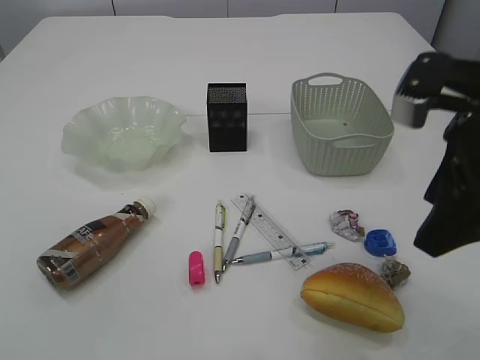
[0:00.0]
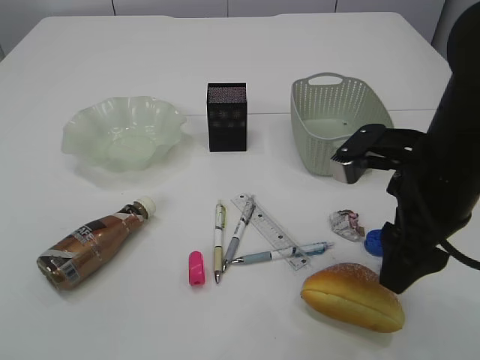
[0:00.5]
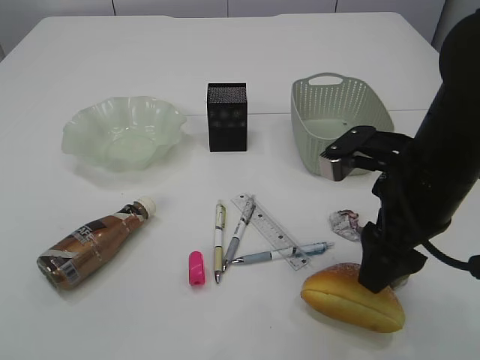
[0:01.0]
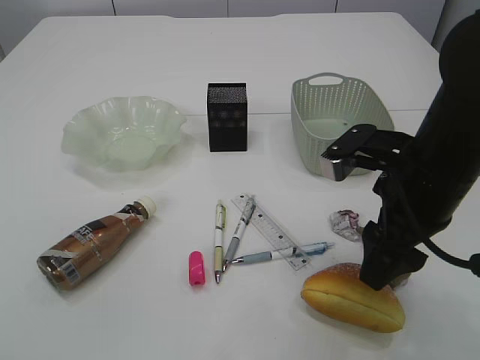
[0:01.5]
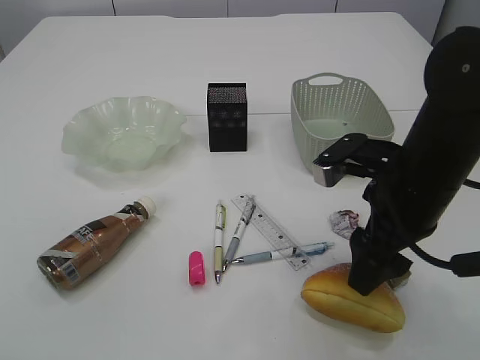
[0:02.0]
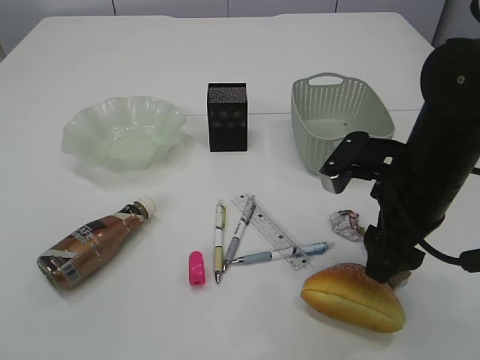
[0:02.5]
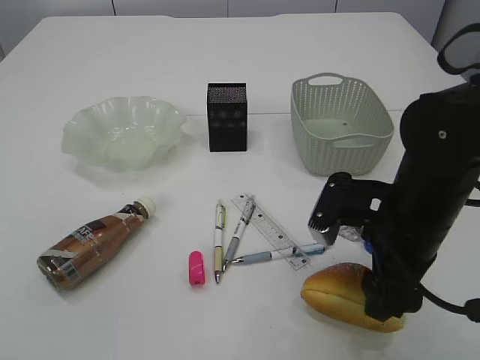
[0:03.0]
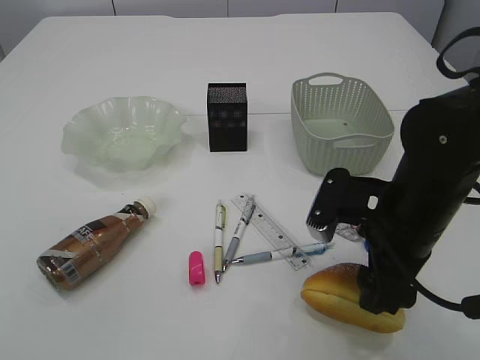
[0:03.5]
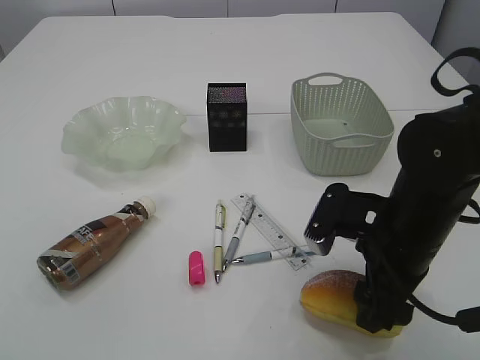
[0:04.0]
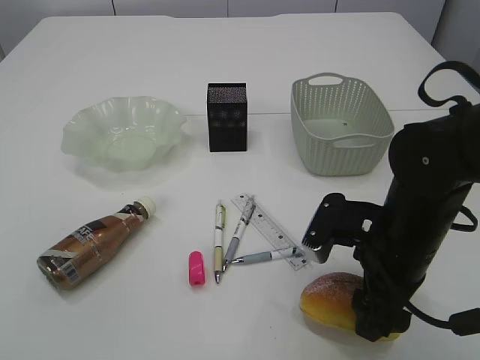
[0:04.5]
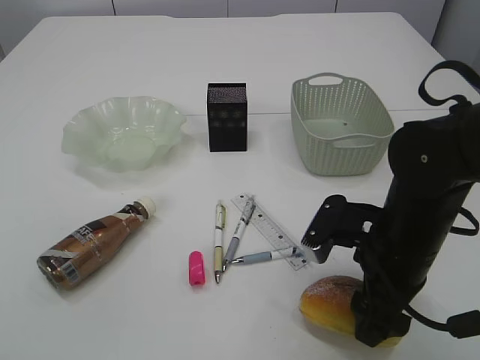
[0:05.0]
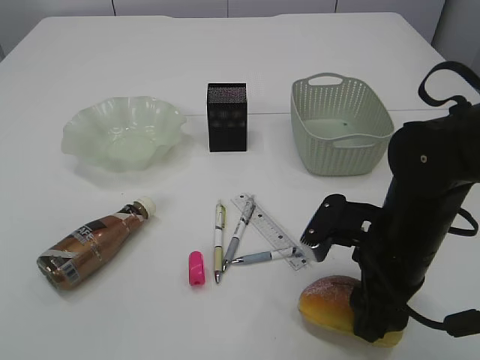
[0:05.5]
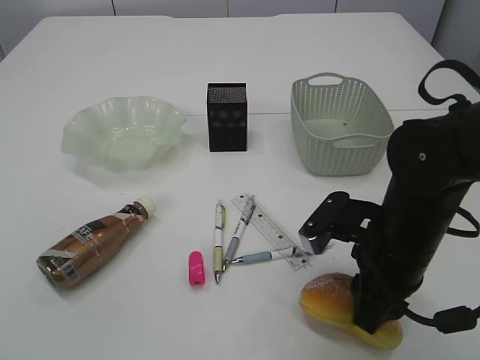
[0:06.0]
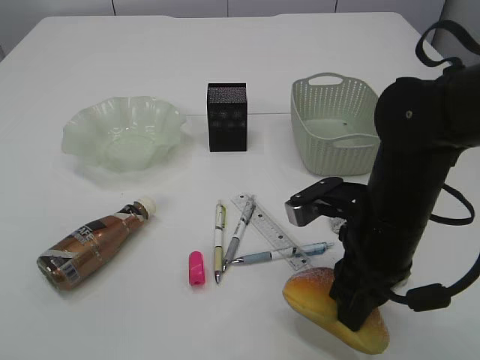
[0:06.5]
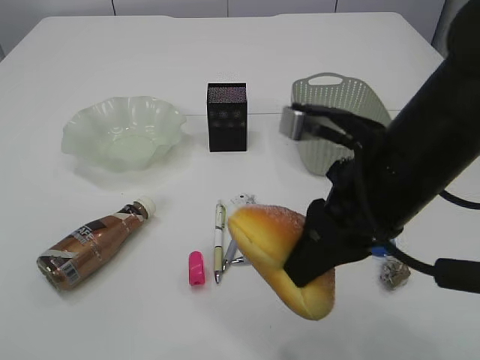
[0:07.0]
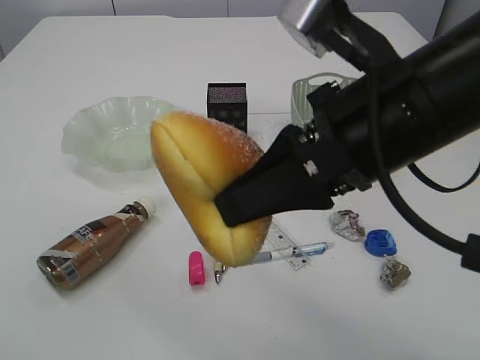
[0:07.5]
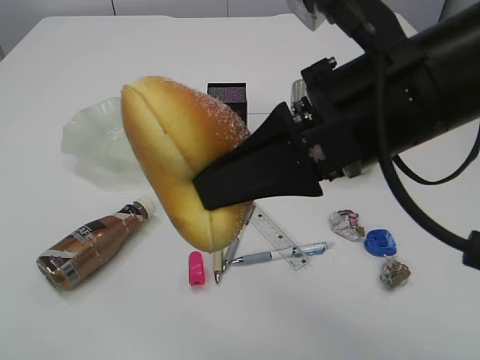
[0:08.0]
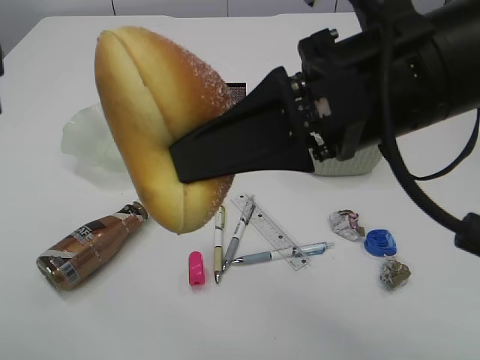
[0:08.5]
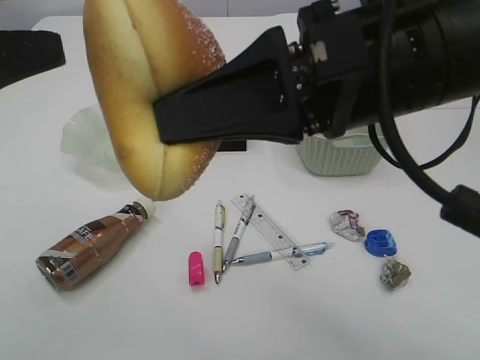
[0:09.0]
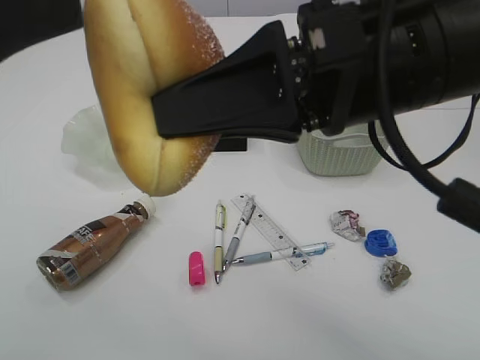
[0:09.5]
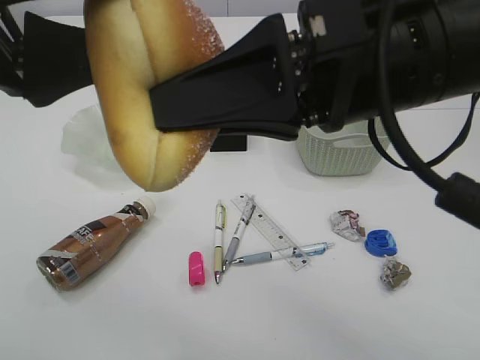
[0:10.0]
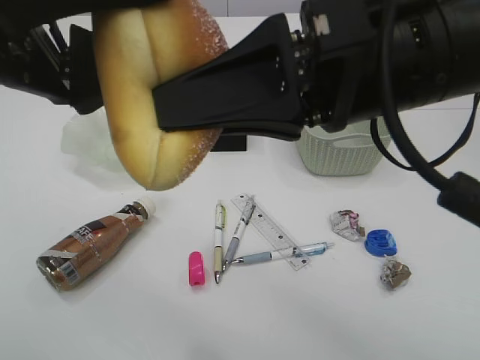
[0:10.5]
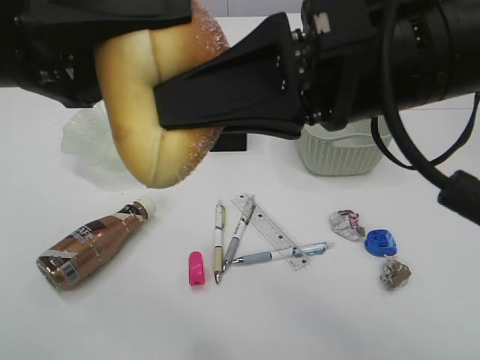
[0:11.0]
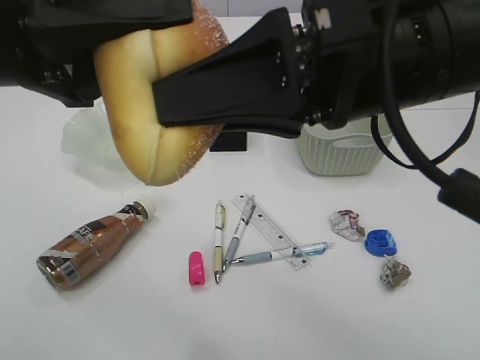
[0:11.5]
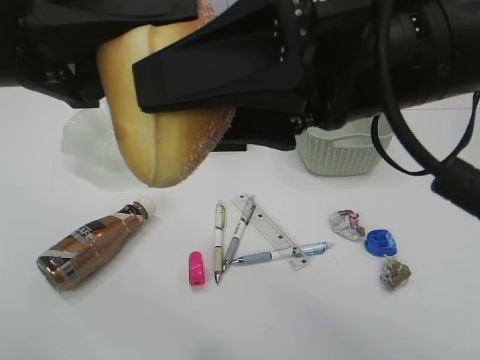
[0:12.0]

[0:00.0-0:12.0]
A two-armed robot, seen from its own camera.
0.0 to 2.0 s: The right gripper heads downward, covering some 10 cm.
2.0 to 4.0 s: The right gripper changes place by approximately 5 cm.
4.0 to 6.0 s: The right gripper closes up.
6.0 to 8.0 s: The right gripper shifts roughly 20 cm upward, while the left gripper goes about 10 cm upward and forward.
8.0 to 10.0 s: The left gripper moves forward and to the right, about 20 cm, and opens.
10.0 to 12.0 s: The left gripper closes. The right gripper opens its fingers.

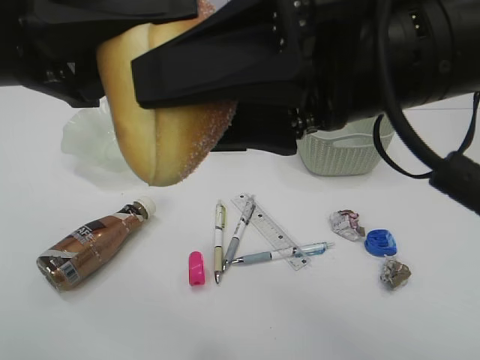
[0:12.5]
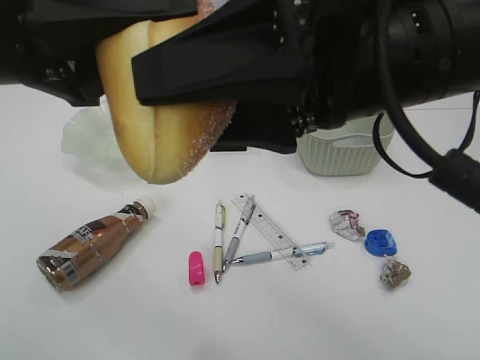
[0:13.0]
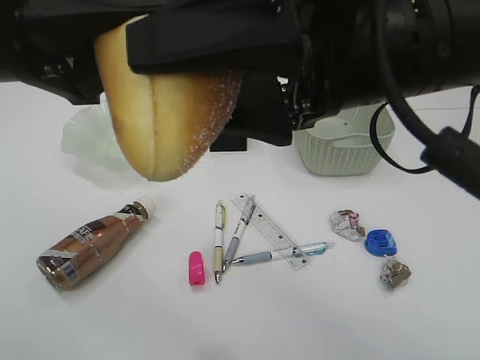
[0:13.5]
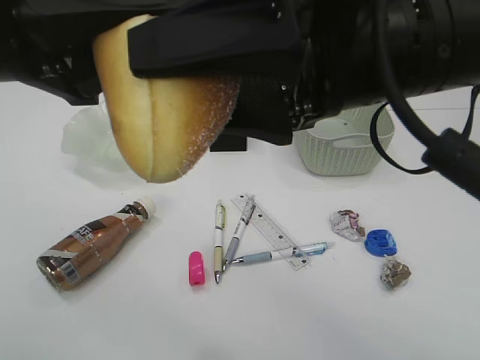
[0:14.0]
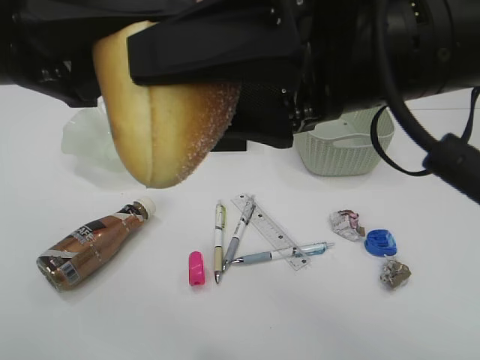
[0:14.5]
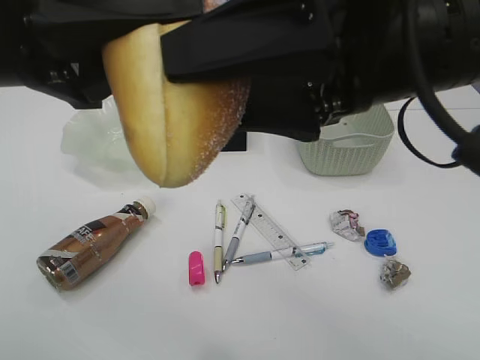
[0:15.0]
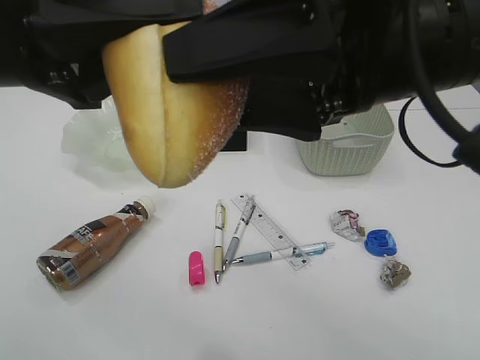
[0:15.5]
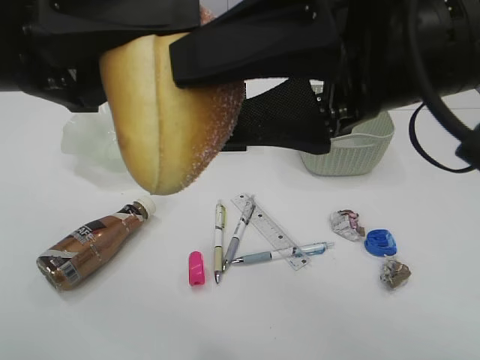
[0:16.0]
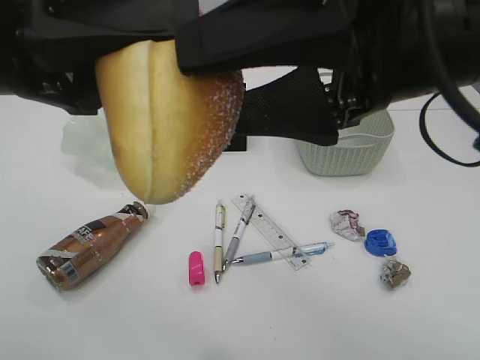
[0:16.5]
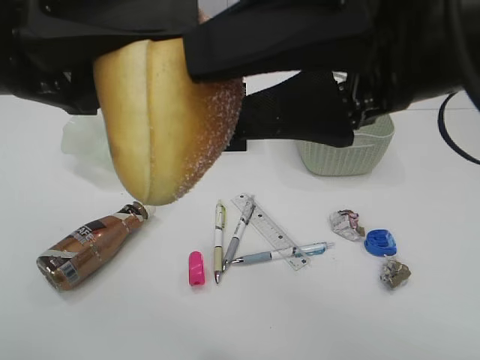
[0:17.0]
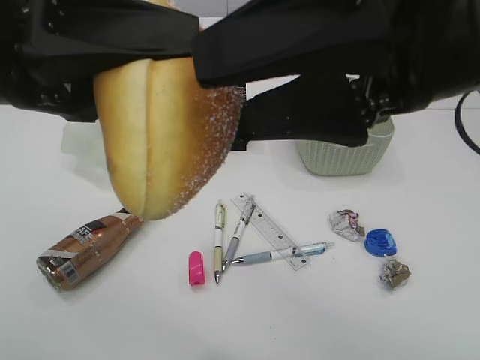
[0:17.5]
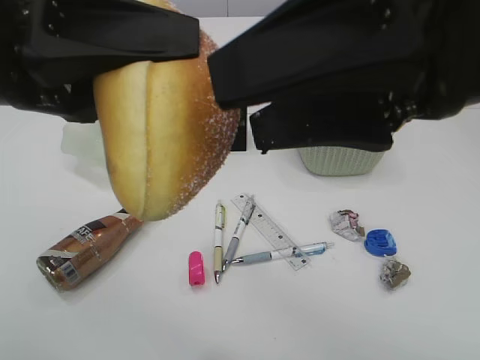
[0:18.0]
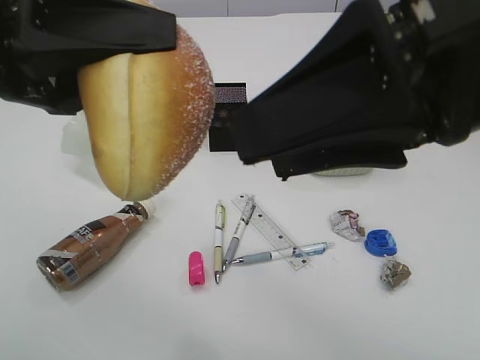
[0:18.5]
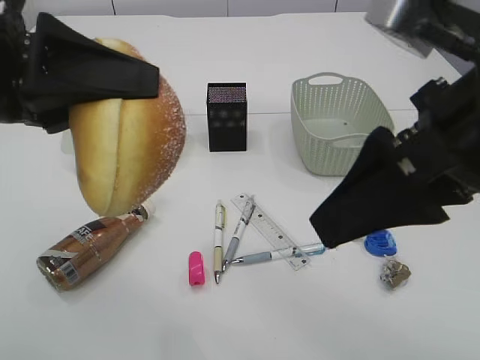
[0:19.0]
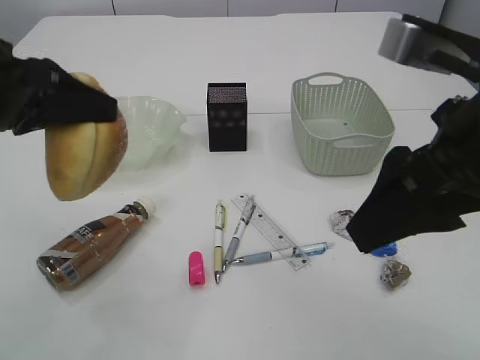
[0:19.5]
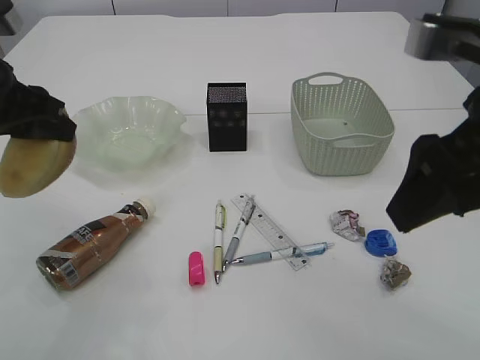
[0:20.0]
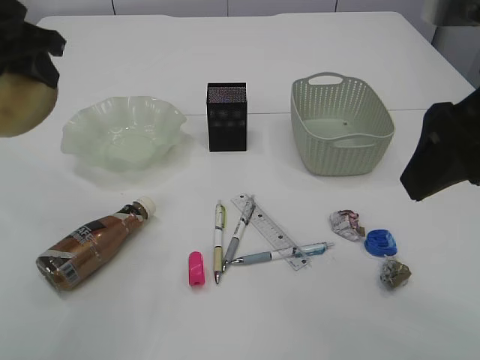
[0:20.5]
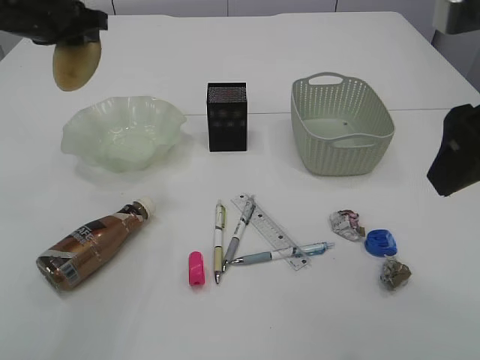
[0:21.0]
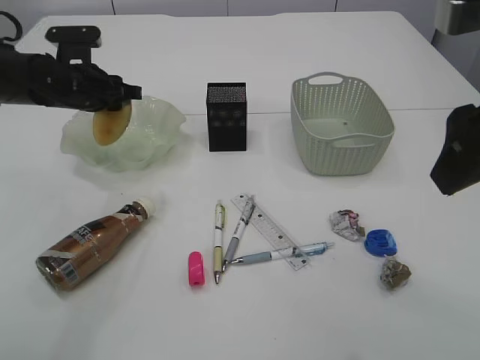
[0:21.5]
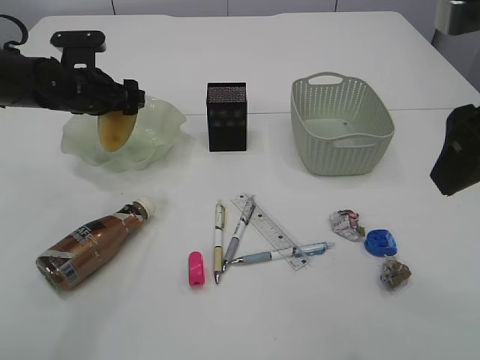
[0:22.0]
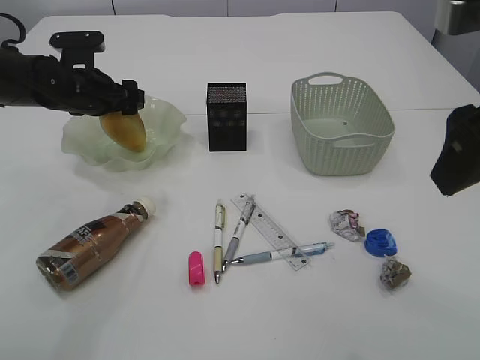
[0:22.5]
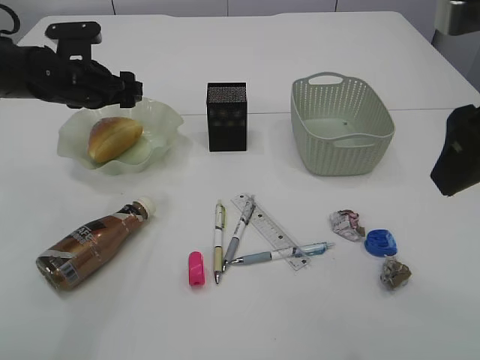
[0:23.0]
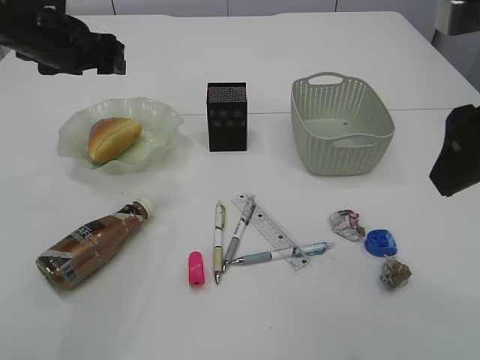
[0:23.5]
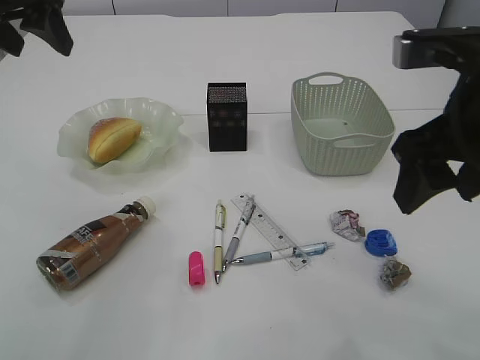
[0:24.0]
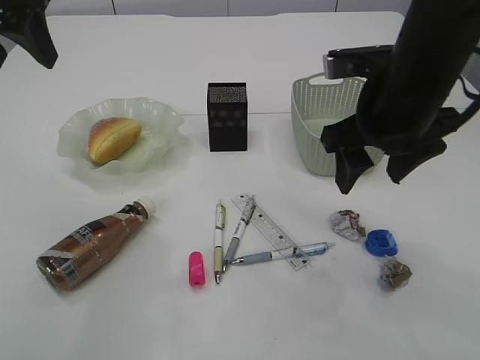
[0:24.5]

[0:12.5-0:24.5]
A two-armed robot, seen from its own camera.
Step, 12.5 to 18.5 s: Hand over the bread.
Step, 19.0 to 23.0 s: place the bread in the plate.
12.5 to 14.5 s: The two grippers keep their place.
14.5 to 16.5 s: The grippers move only a little.
18.5 to 20.5 s: The left gripper travels forward and to the left by some 15 cm. Meanwhile the right gripper goes approximately 5 cm to the right.
20.5 to 22.5 s: The left gripper is displaced downward and forward by some 20 cm, and opens its fingers.
22.5 to 24.5 s: The left gripper travels upward and backward by approximately 25 cm. Meanwhile the right gripper is displaced forward and downward by about 15 cm.

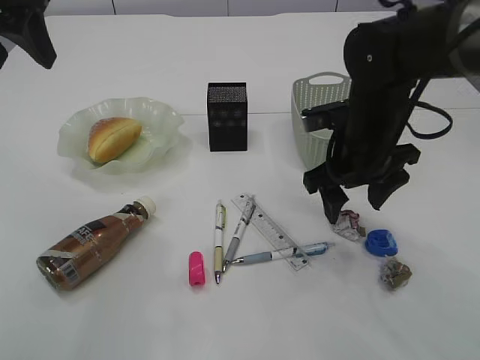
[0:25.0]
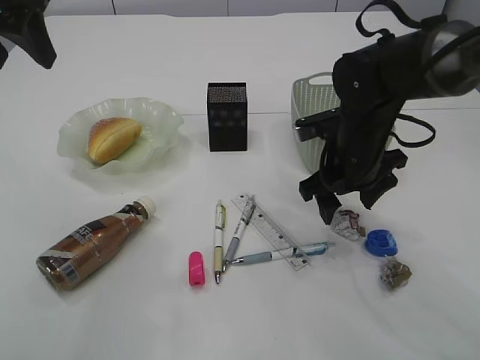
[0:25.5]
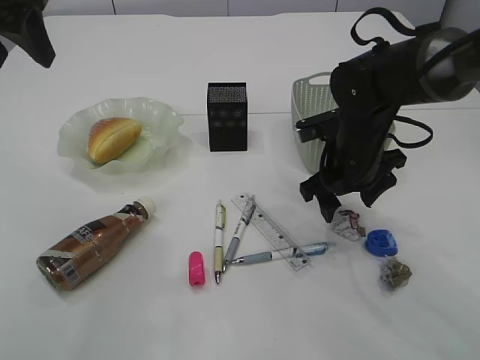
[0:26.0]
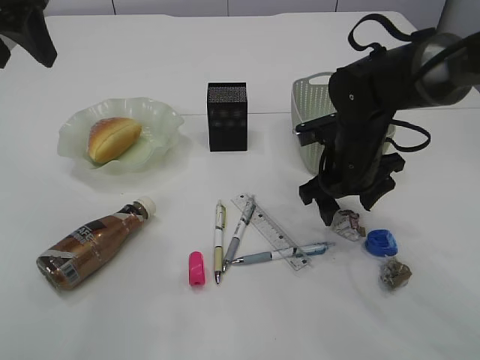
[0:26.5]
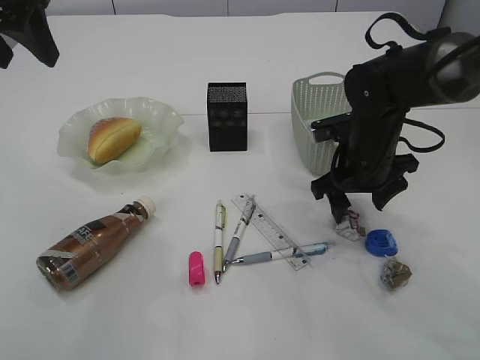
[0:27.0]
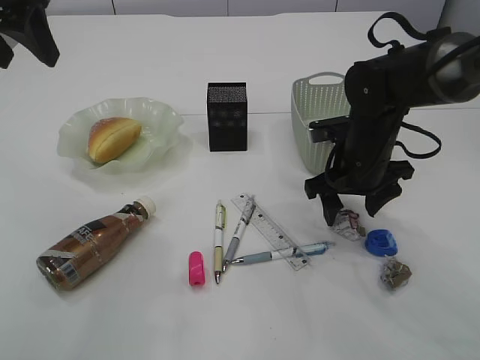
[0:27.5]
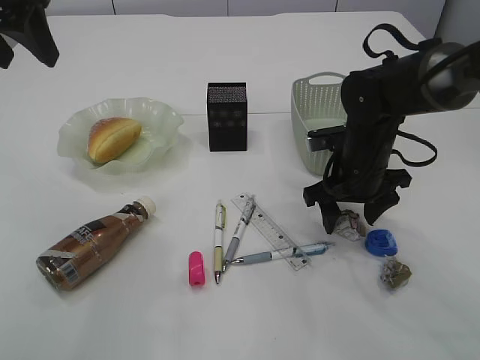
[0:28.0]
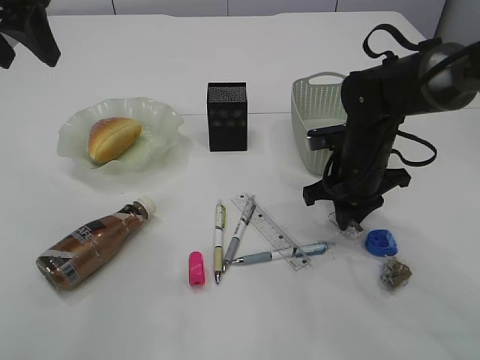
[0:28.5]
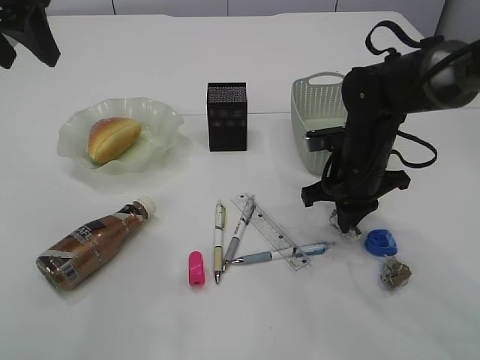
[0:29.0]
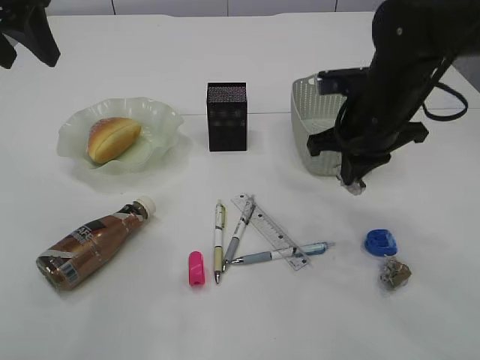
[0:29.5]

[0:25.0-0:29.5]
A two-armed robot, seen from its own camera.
Step, 25.0 to 29.5 s: Pick up the waste paper.
25.0 to 27.0 s: The right gripper changes place by some 5 cm.
27.0 to 29.5 s: The right gripper travels upward by about 5 cm, and closes up.
